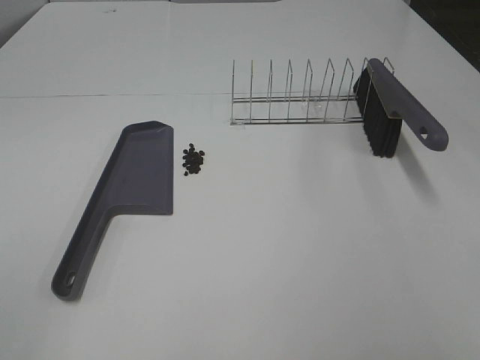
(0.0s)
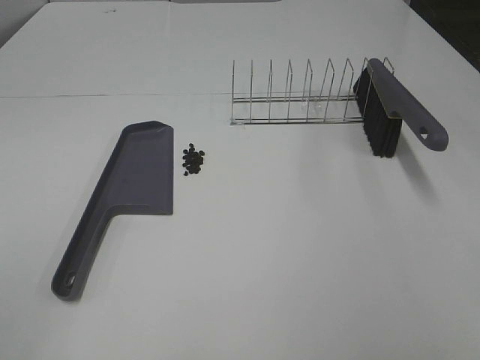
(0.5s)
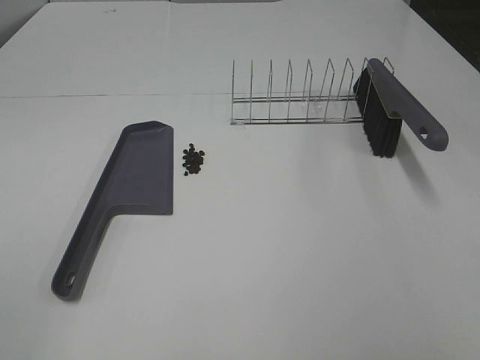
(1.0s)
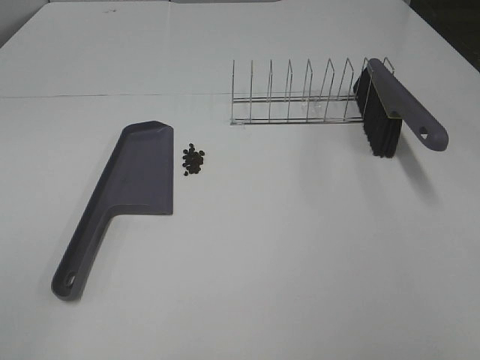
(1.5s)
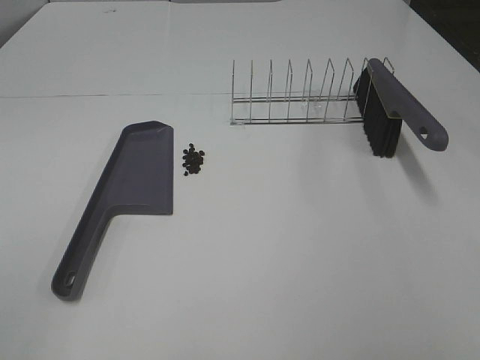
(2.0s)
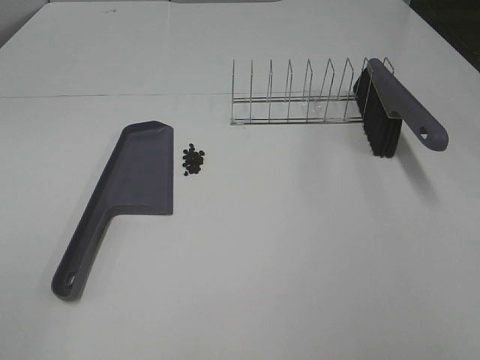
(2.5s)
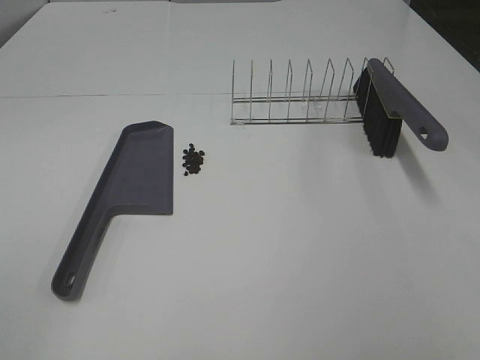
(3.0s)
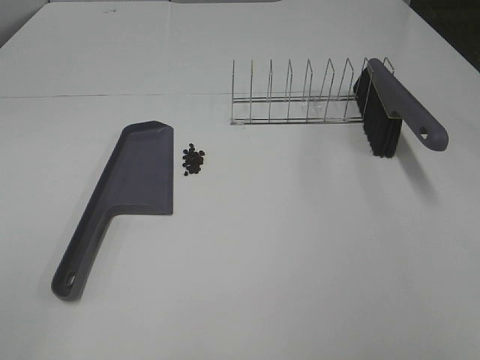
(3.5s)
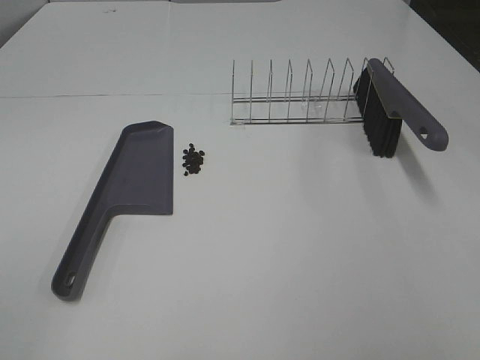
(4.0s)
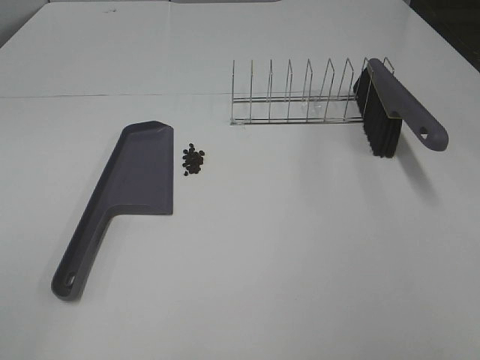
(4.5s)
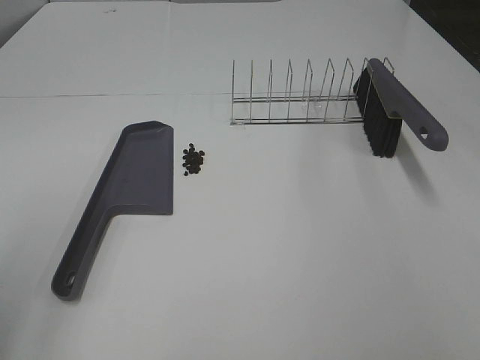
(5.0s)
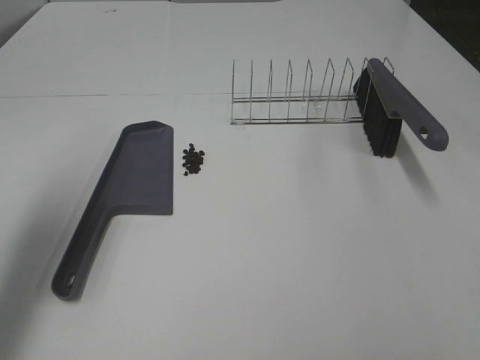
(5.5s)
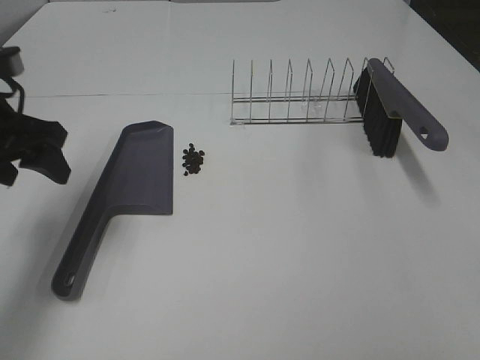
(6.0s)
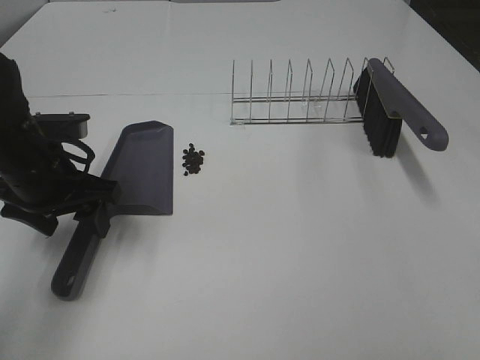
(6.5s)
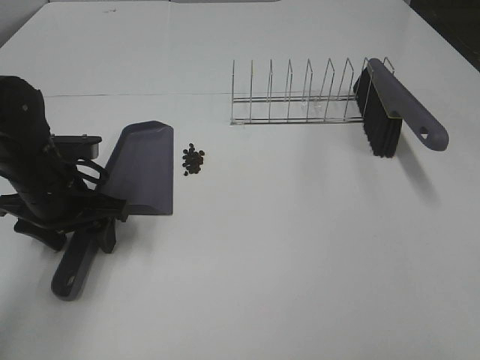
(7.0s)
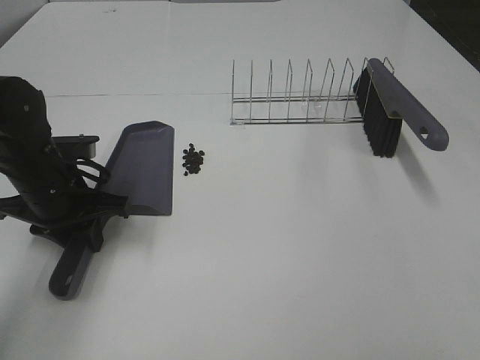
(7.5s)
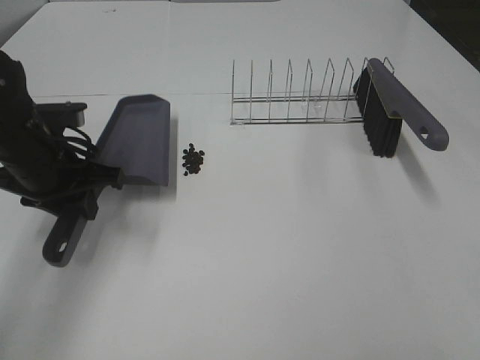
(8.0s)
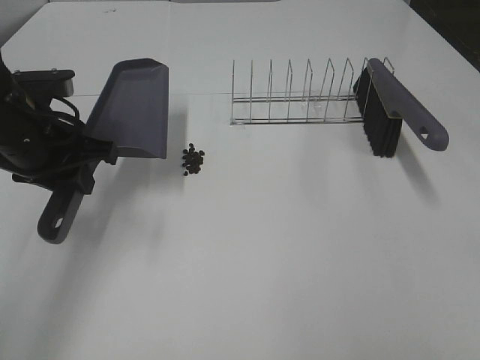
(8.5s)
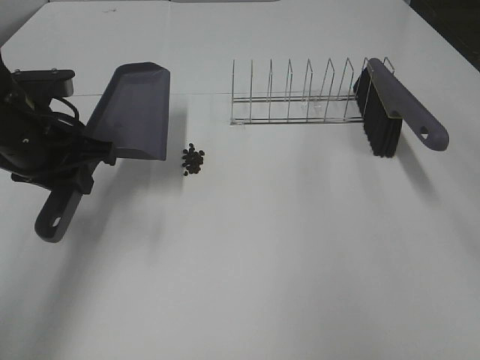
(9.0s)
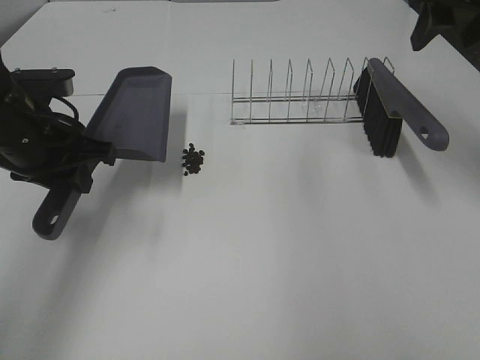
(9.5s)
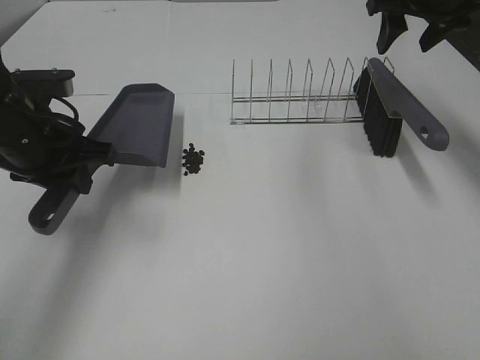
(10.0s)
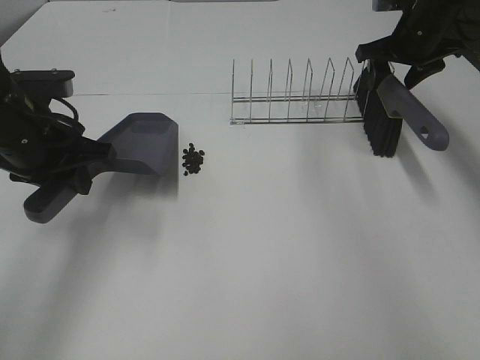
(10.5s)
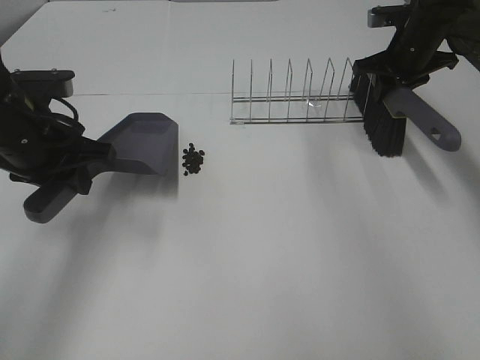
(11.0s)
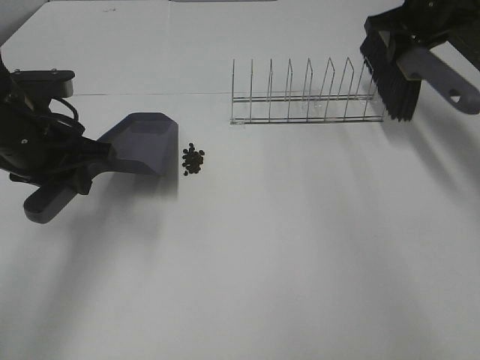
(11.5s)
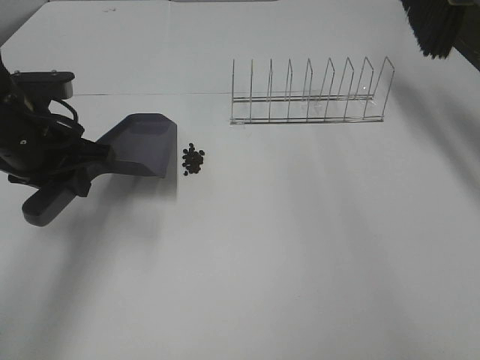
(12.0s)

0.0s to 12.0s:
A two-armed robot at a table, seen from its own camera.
Task of the whole recording: Sweep Coffee Bean.
Step, 0.0s to 7.0s: Left hand: grab the dustpan.
Step, 8.5s to 11.0s: Right hand:grab the broom.
0.0s to 4.0s: Both grippers stay about where they are.
4.0s to 6.0s: The left gripper travels forward by approximately 30 cm.
6.0s to 8.0s: The left gripper goes approximately 5 cm downward, and closes up.
8.0s to 10.0s: The right gripper is displaced forward by about 50 cm.
10.0s to 12.0s: The right gripper moves upward, approximately 10 cm, and closes up.

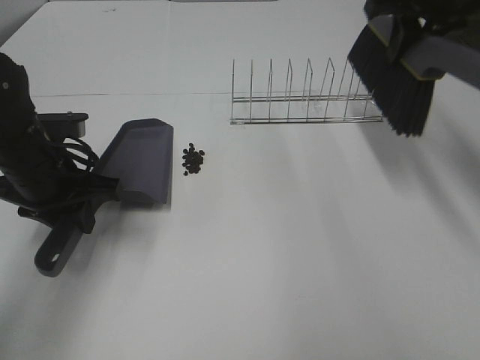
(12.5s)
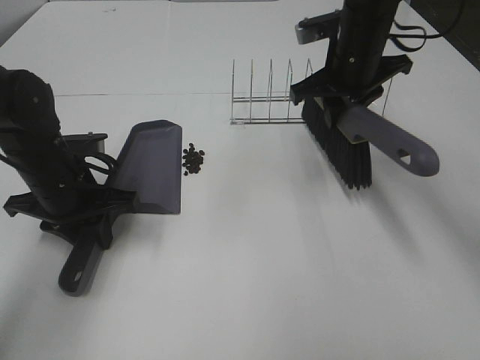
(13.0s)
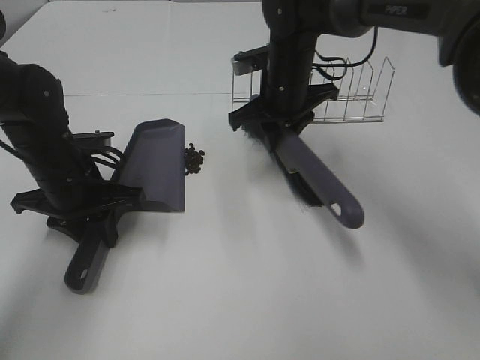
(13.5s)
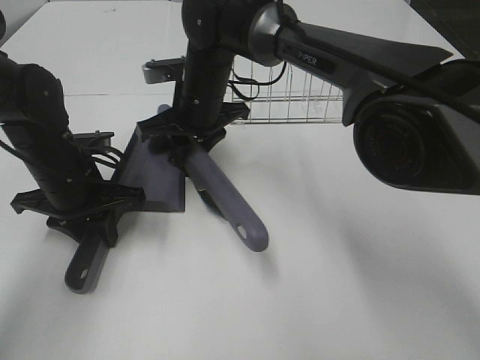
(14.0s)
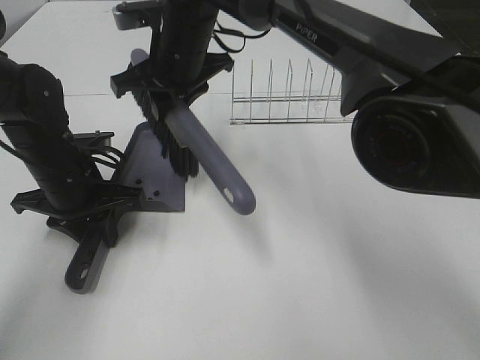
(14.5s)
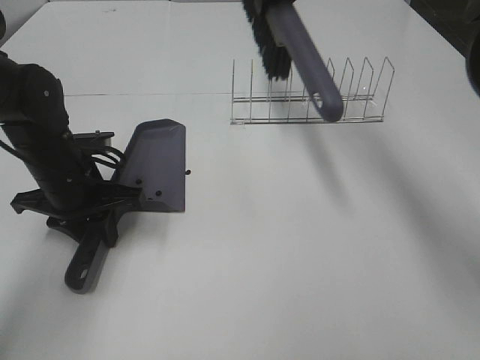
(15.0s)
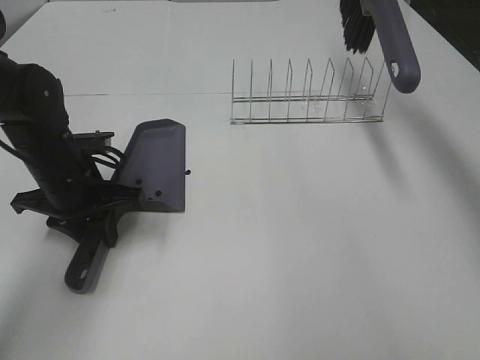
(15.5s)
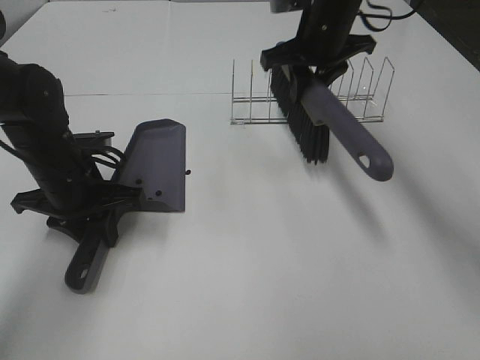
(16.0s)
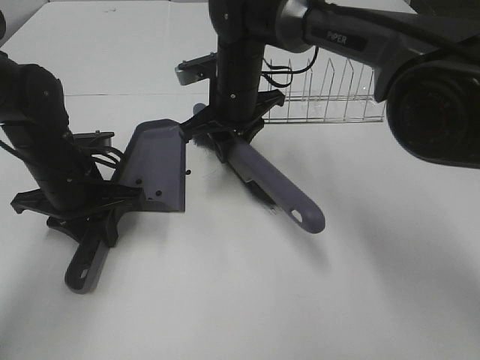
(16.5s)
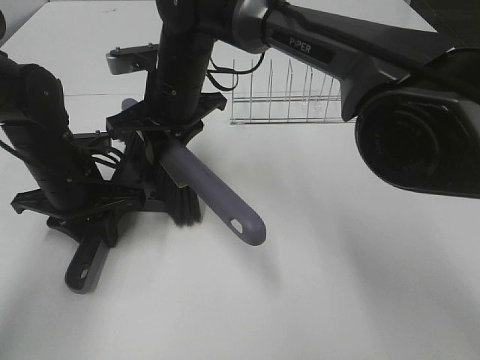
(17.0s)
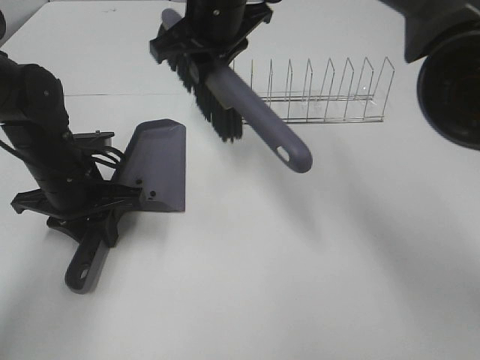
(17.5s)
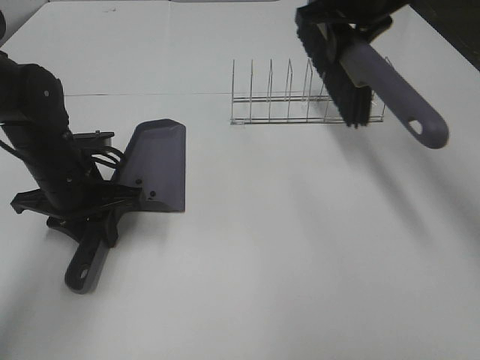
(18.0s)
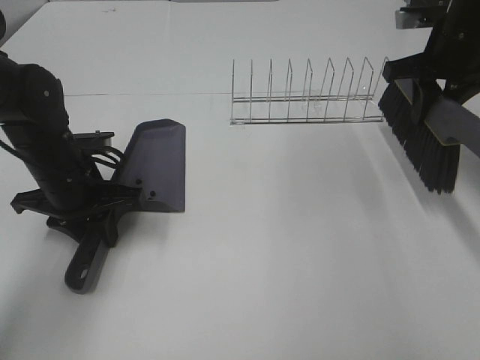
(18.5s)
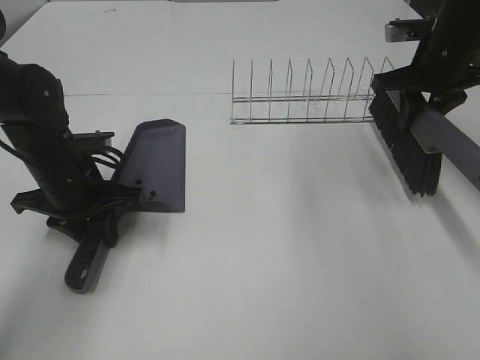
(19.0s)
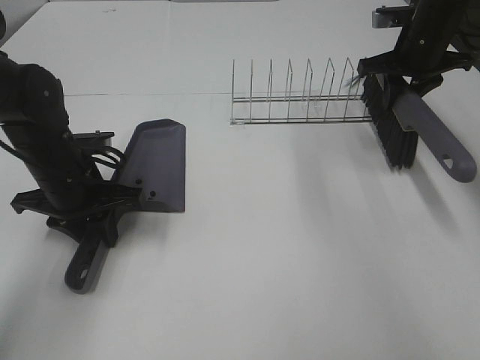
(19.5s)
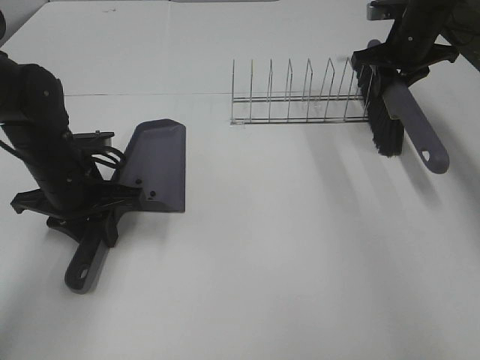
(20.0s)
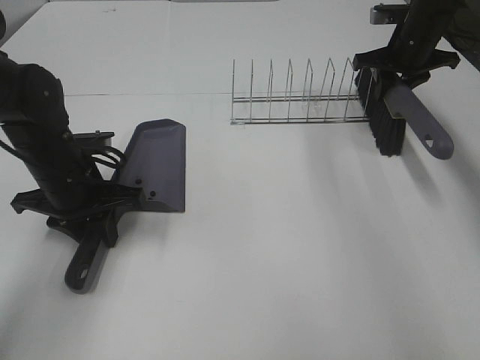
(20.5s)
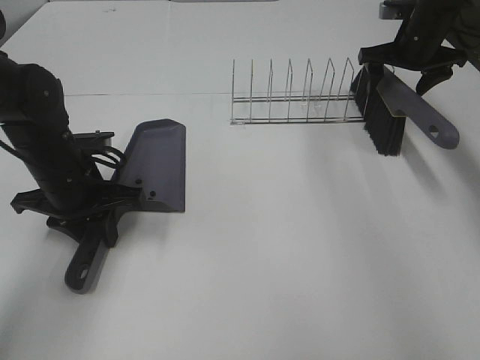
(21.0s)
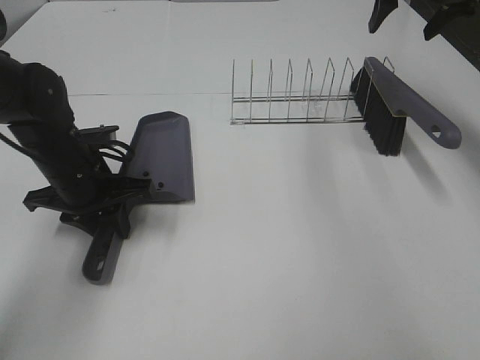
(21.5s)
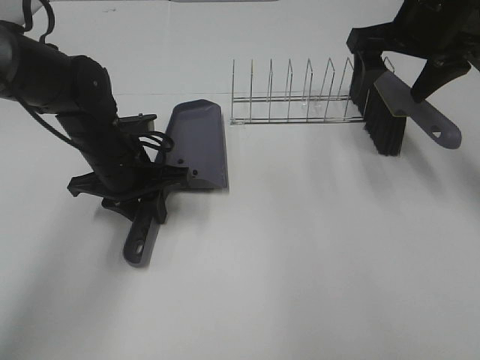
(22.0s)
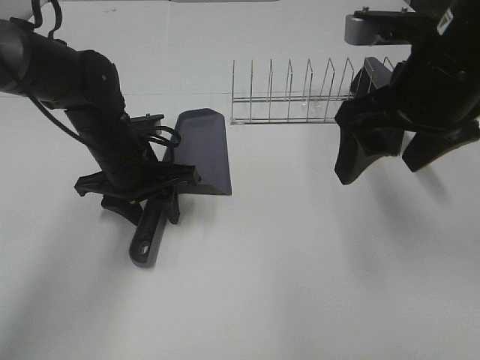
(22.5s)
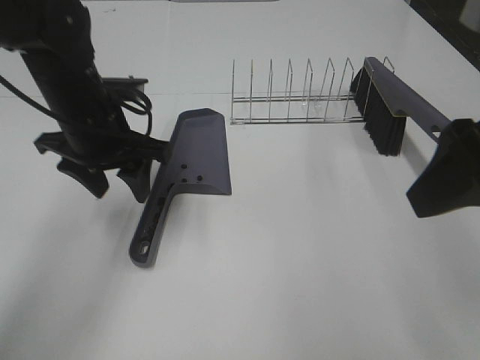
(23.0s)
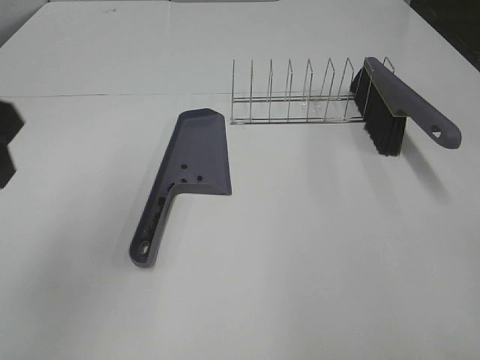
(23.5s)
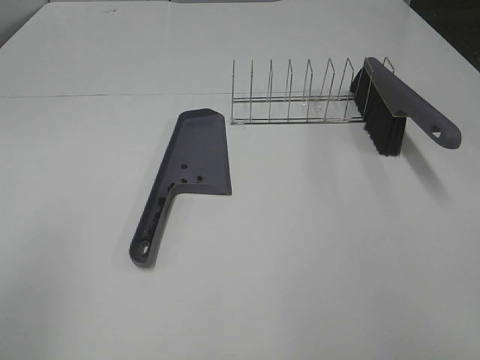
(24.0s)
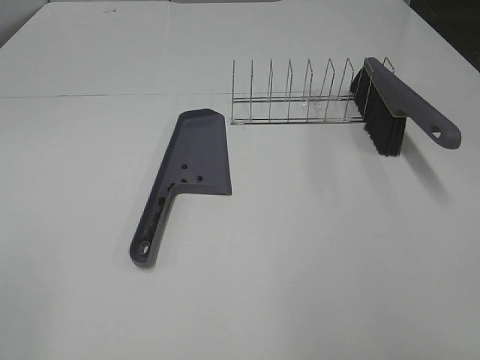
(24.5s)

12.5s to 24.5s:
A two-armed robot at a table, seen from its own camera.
Task of the whole recording: Sweep Coffee Bean.
Step, 12.5s to 17.0s: Right hand:sweep the coffee beans into the dustpan.
Step, 17.5s to 20.5s: Right hand:place the broom on the rack.
Step, 21.0s to 22.5s: Left hand:place the dustpan on the table.
12.5s to 14.5s: The right gripper is displaced to the left by roughly 30 cm.
14.5s to 16.5s: The right gripper is displaced downward by about 5 cm, and goes to the right and returns, approximately 25 cm each way.
16.5s to 18.5s: The right gripper travels to the right by approximately 25 cm.
18.5s to 20.5s: The right gripper is displaced forward and downward by roughly 10 cm.
20.5s to 22.5s: The left gripper moves to the right, some 5 cm, and opens its fingers; the right gripper moves backward and to the left, some 30 cm, and opens up.
22.5s to 24.5s: The left gripper travels backward, to the left and upward by approximately 40 cm, while the right gripper shifts roughly 20 cm backward.

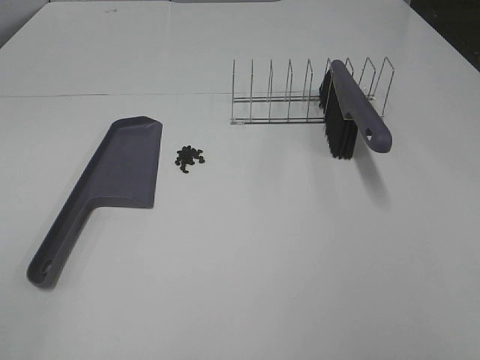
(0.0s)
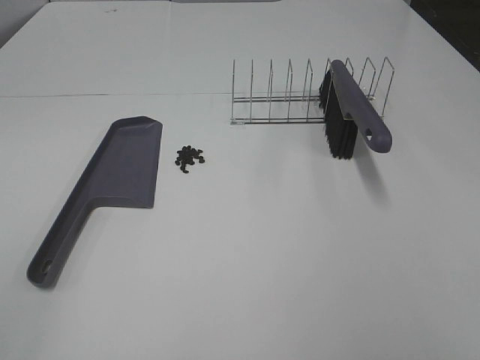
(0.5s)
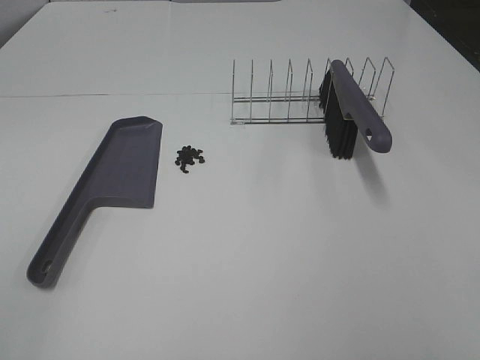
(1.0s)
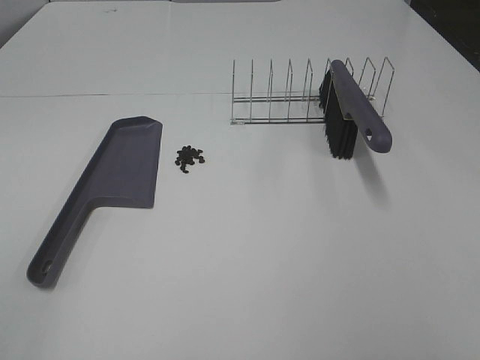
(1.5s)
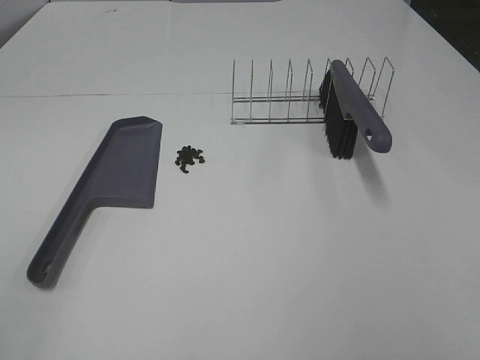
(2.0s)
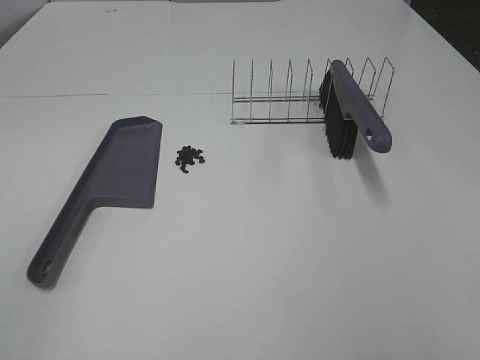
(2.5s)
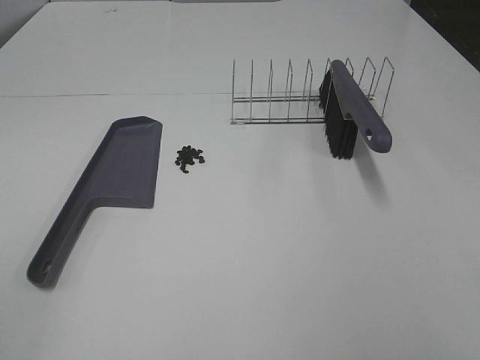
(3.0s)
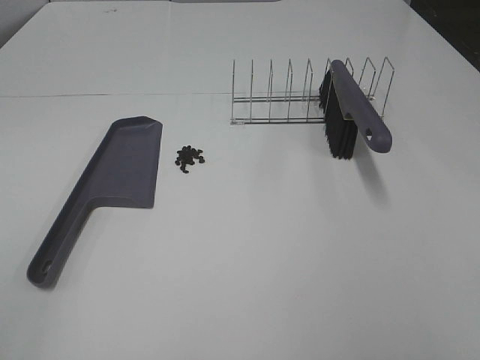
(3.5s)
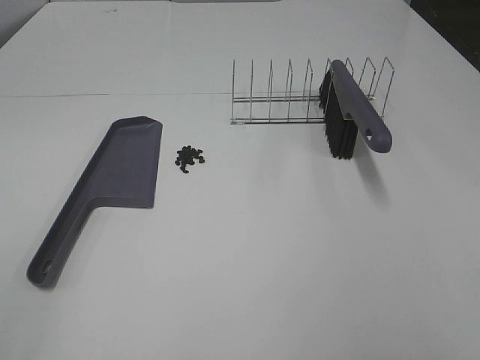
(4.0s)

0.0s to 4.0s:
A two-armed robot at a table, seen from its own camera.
Task of the whole recording: Sweep Coffee Bean.
0.0s to 4.0s: Both grippers stay put.
